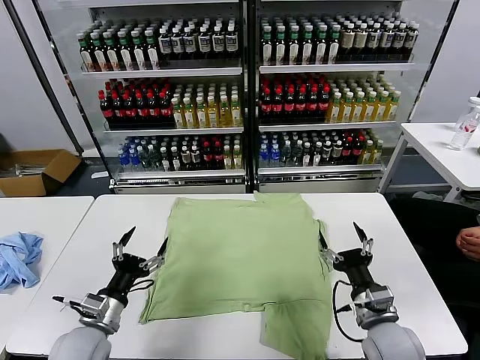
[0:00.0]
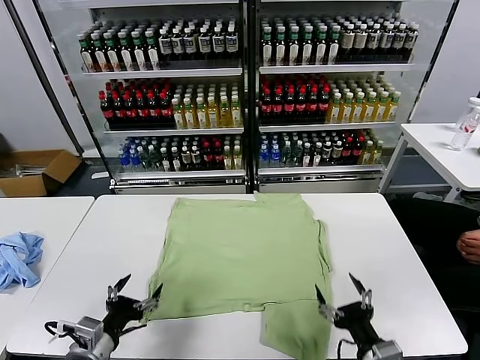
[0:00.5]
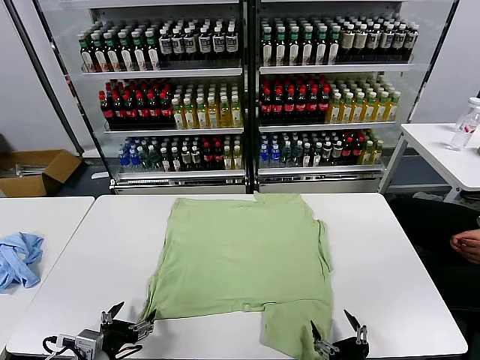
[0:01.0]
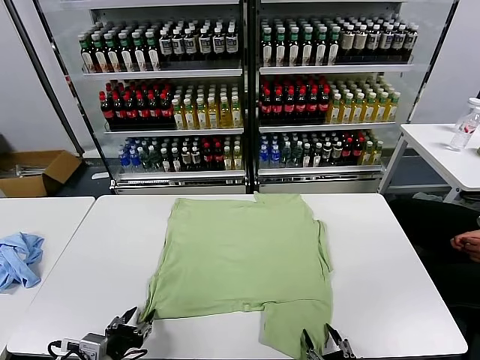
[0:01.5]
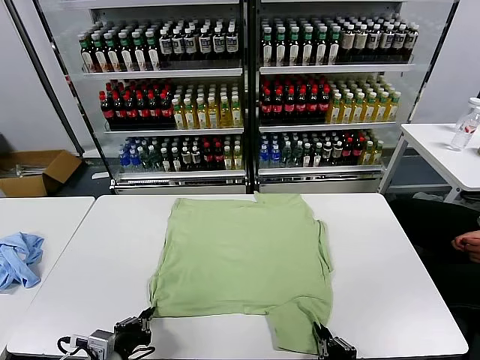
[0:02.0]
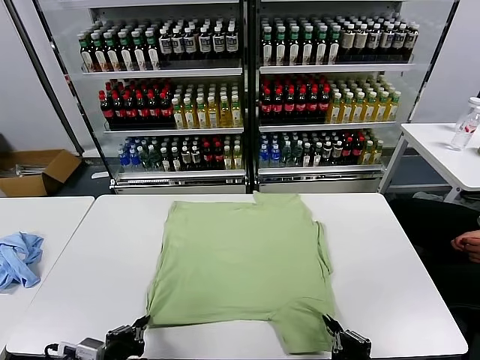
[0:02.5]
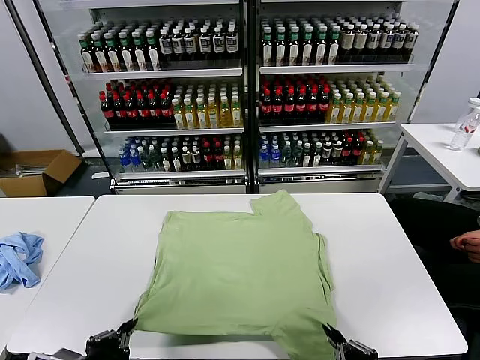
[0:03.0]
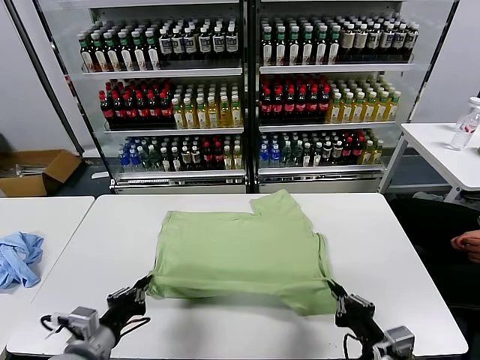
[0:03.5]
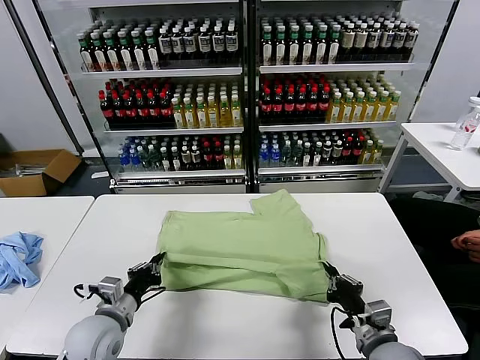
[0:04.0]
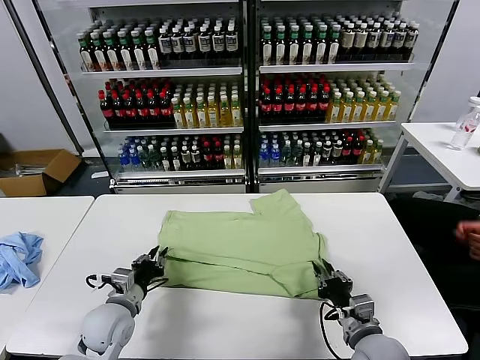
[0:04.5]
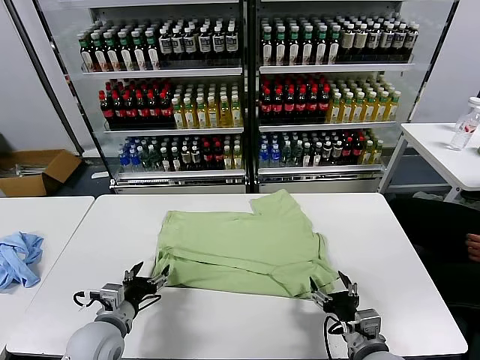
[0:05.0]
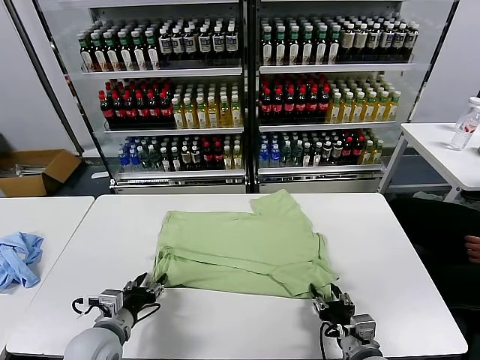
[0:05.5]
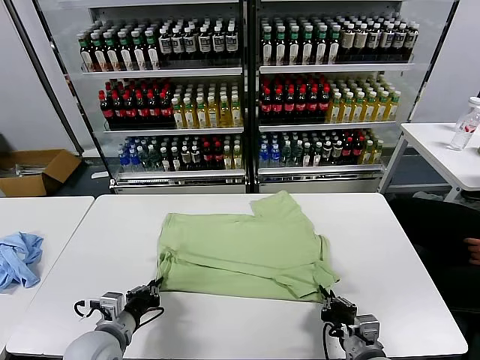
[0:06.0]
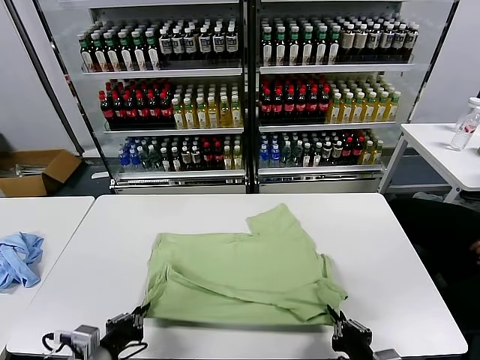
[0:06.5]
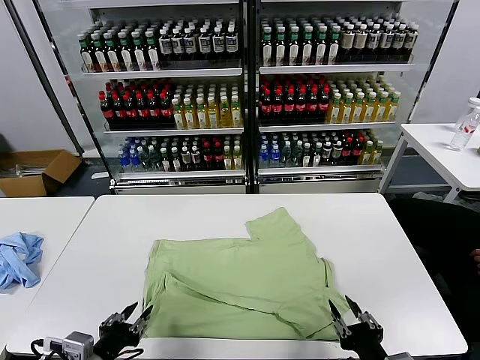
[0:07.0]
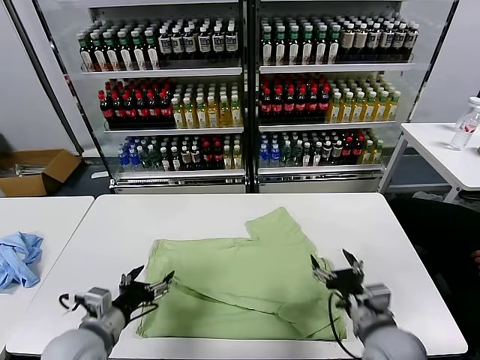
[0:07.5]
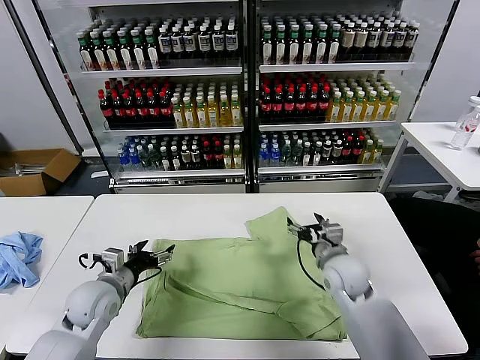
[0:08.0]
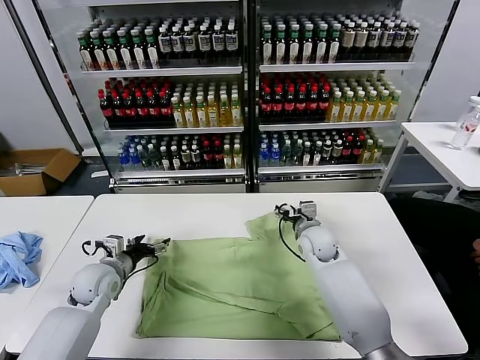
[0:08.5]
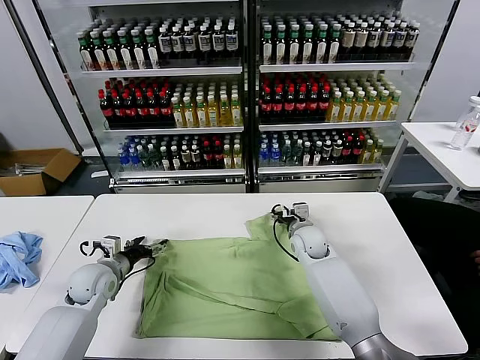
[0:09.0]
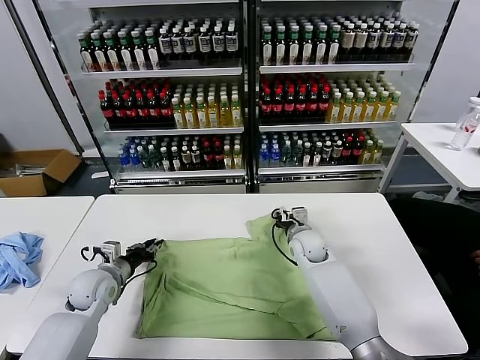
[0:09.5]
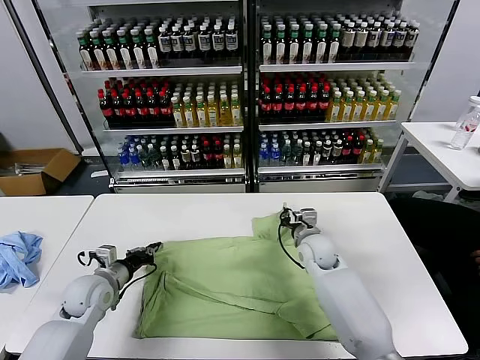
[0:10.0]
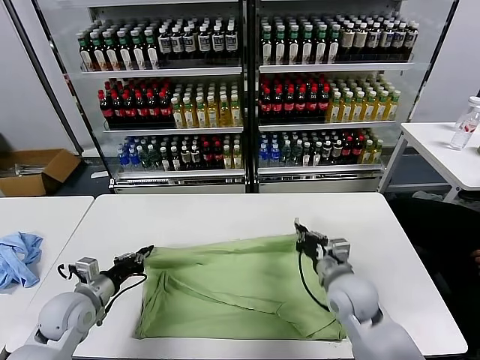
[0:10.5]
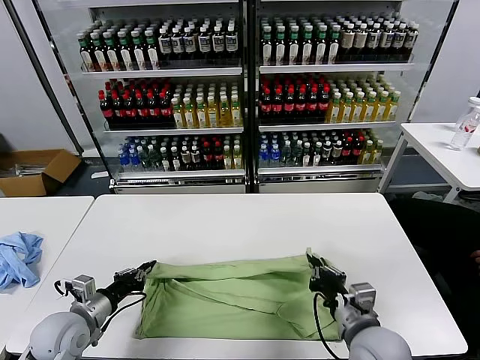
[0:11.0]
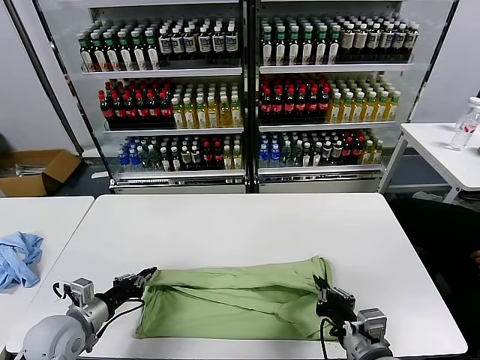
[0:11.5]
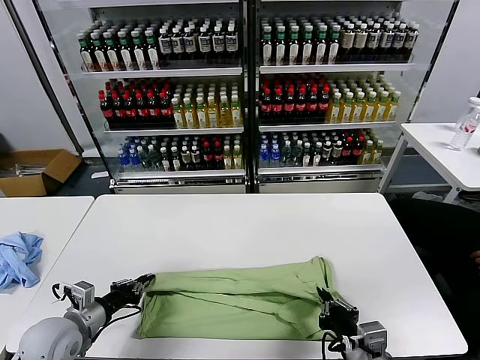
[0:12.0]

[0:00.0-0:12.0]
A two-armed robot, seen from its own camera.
Task of the whole recording: fold and organize the clothes.
Step, 0:00.0 to 0:02.0: use both grippers simultaneously to clamp the lower edge of the clothing fabric.
Step, 0:02.5 to 0:04.5: use both grippers to drag the lower edge of the fabric forward and fold it over the upper edge.
Step, 0:05.0 to 0:06.5: Drag the clothes downward with both gripper.
Step, 0:07.0 to 0:09.5: use both grippers simultaneously to clamp the upper edge of the clothing fabric.
0:02.0 to 0:04.0: Both grippers travel together forward, about 10 cm.
0:04.0 to 0:06.0: The left gripper opens, then closes once more; the right gripper opens and closes again.
0:06.0 to 0:08.0: The right gripper travels forward by roughly 20 cm, and opens its fingers, while the left gripper travels forward by about 10 cm, and opens up.
0:08.0 to 0:10.0: The right gripper heads forward, covering roughly 5 cm, and closes its fingers; the left gripper ends up approximately 5 cm from where it was, and closes its fingers.
0:10.0 to 0:12.0: The right gripper goes approximately 30 cm backward; the left gripper goes some 10 cm backward.

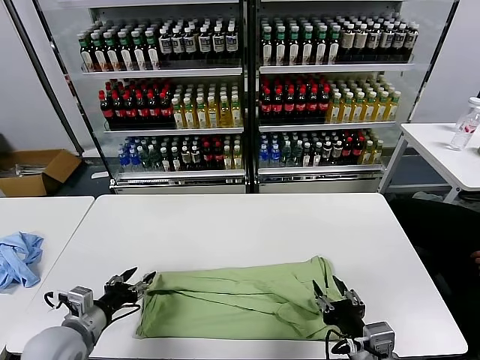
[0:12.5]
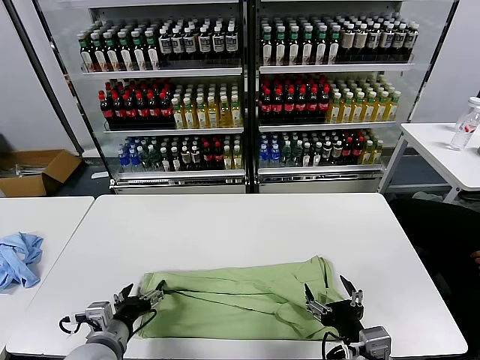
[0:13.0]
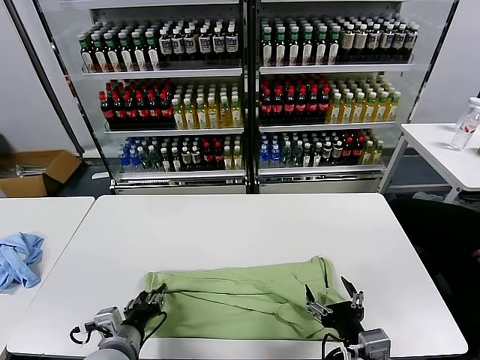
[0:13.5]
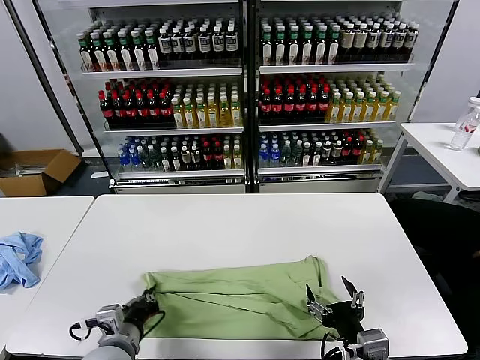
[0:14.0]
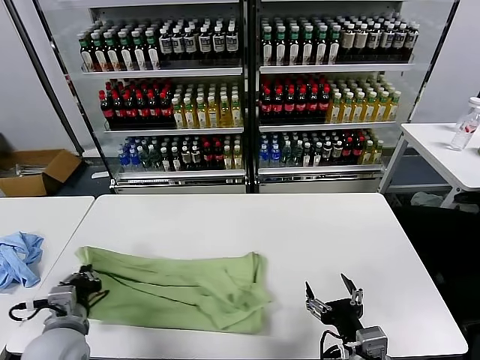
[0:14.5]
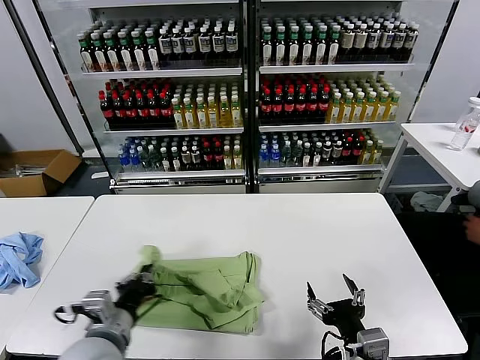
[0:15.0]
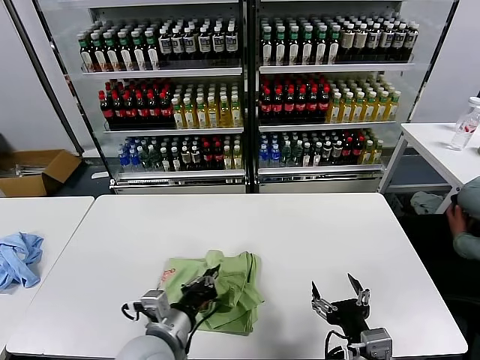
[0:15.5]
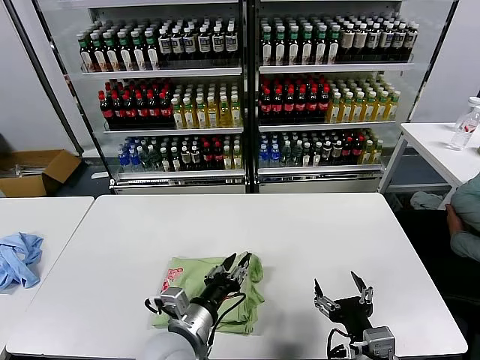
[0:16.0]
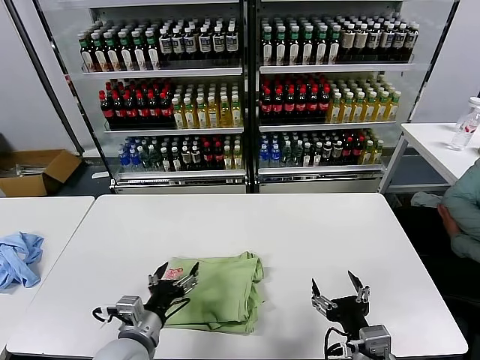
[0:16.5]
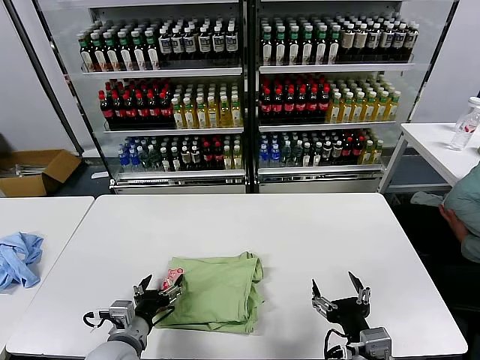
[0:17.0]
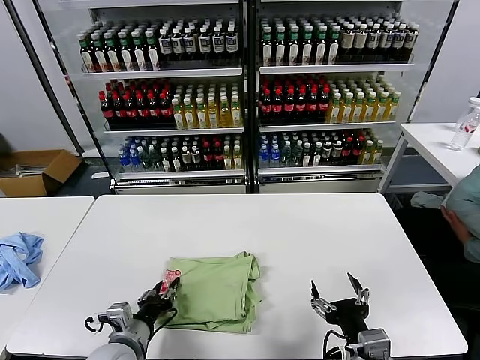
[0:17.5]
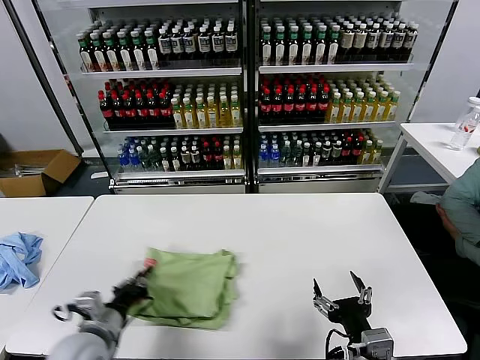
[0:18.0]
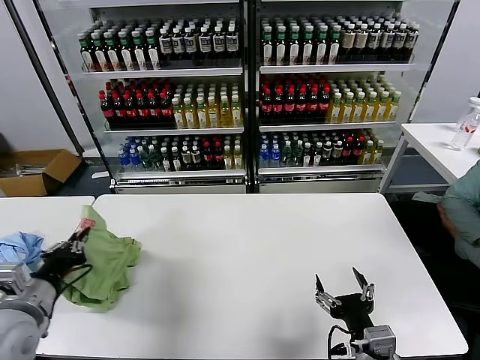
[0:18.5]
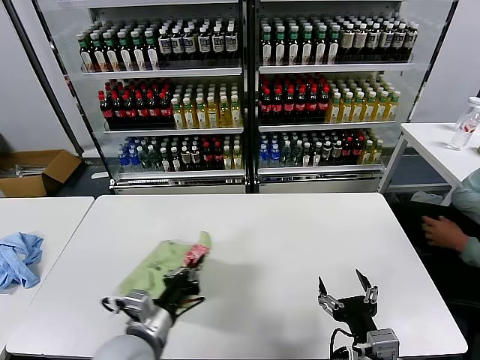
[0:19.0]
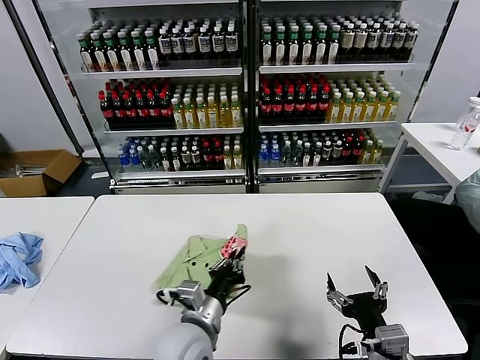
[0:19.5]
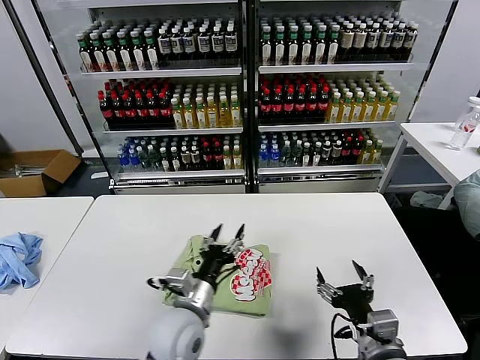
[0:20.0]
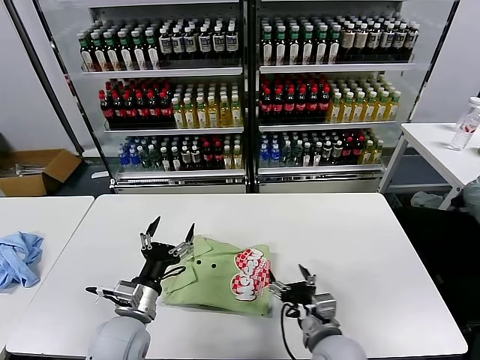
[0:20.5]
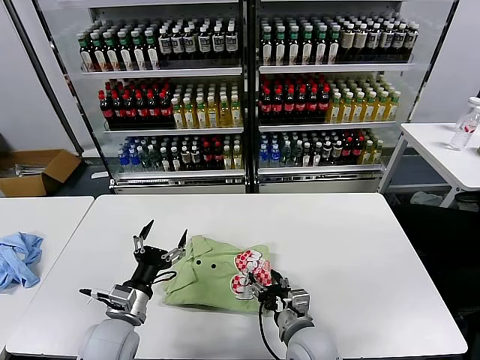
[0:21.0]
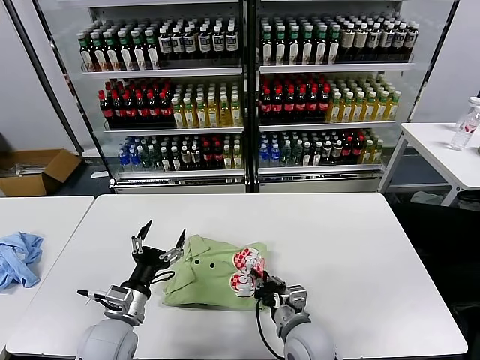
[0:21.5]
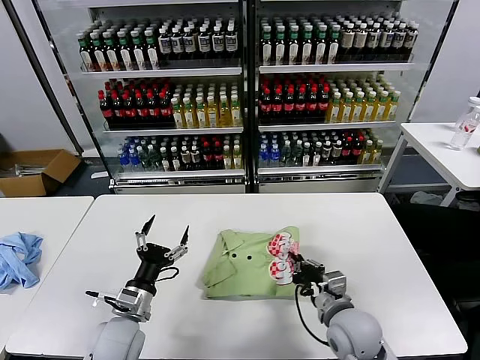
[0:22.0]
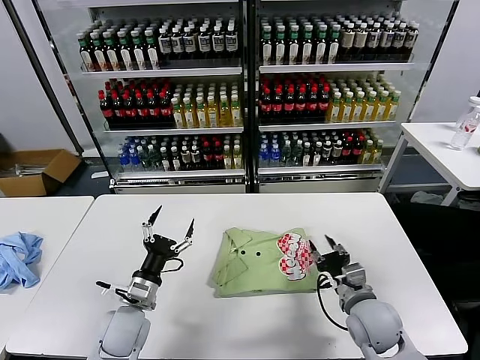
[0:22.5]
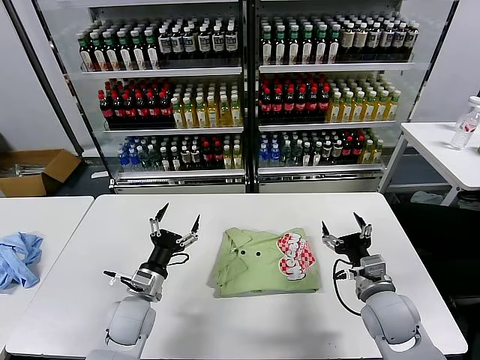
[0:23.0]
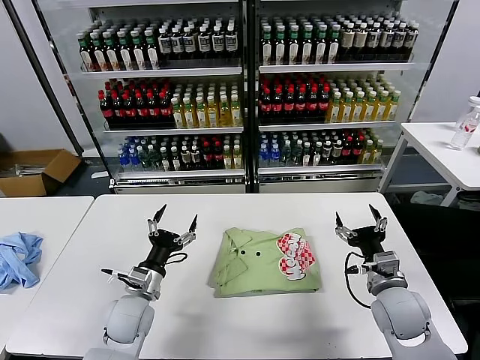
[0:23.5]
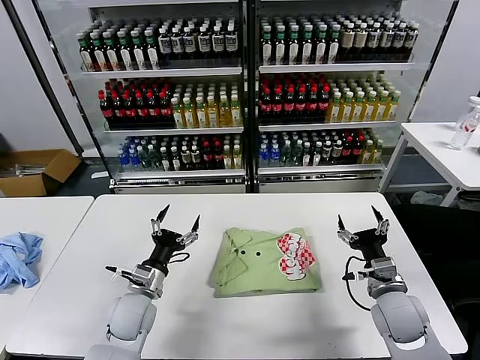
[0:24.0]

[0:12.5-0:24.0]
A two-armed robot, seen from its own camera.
Task of the whole recording: fold and organize the clothes.
Step, 0:12.5 to 0:13.5: use the left gripper to clamp the left edge of the fabric.
Step, 0:14.0 to 0:16.0: use the left gripper to drag the left edge of the fabric to the left and folds it over the right edge.
Step, 0:16.5 to 0:19.5: Flip the folded clothes over with left gripper.
Step, 0:20.0 to 0:22.0: Drag the clothes to the center of the table.
0:12.5 to 0:14.5: The right gripper opens up. The left gripper goes to the right and returns, about 10 cm each way, and closes.
0:14.5 to 0:16.5: The left gripper travels to the right by approximately 10 cm, and opens its fingers.
0:16.5 to 0:18.5: The left gripper heads to the left and upward, covering approximately 20 cm, and closes up.
0:18.5 to 0:20.0: The left gripper goes some 30 cm to the right, and opens.
0:20.0 to 0:22.0: The right gripper shifts approximately 10 cm forward and downward, and closes its fingers. Meanwhile the left gripper travels to the left by roughly 15 cm, and opens up.
0:22.0 to 0:24.0: The left gripper heads forward, covering some 5 cm. Meanwhile the right gripper travels to the right by about 10 cm, and opens up.
